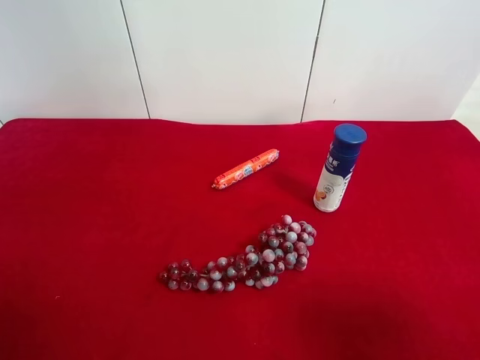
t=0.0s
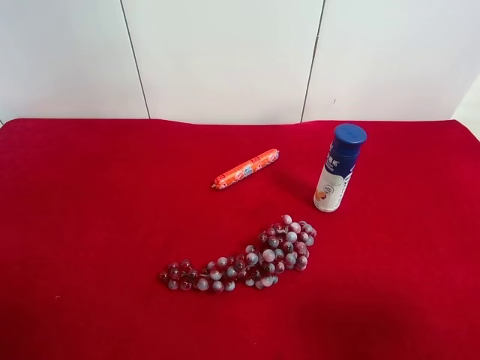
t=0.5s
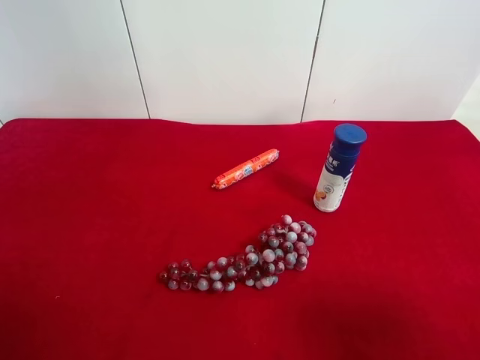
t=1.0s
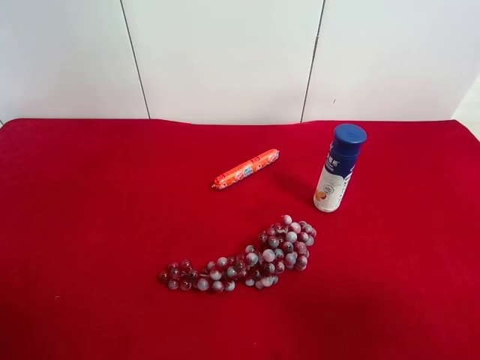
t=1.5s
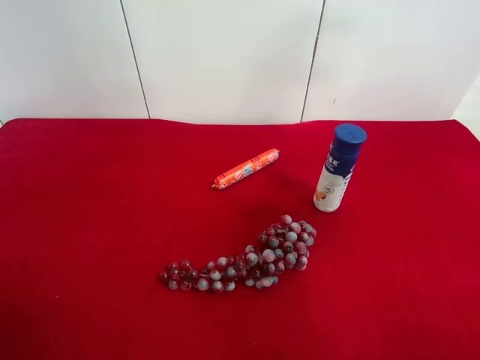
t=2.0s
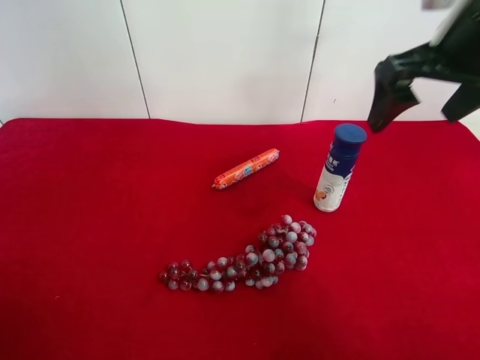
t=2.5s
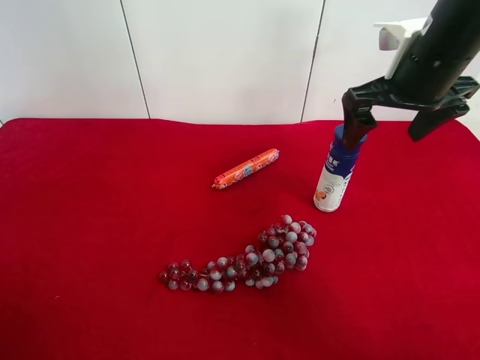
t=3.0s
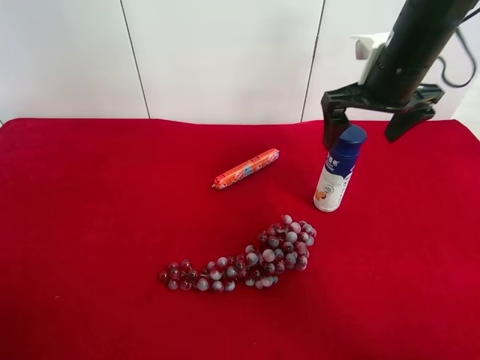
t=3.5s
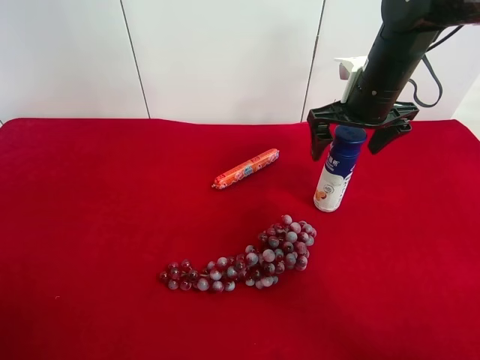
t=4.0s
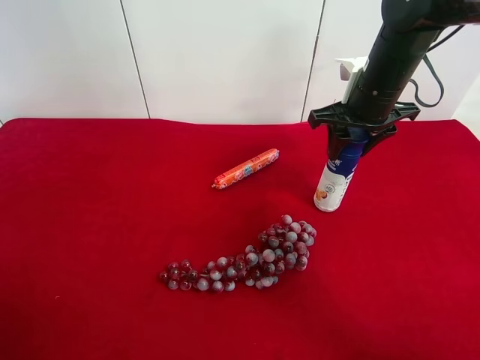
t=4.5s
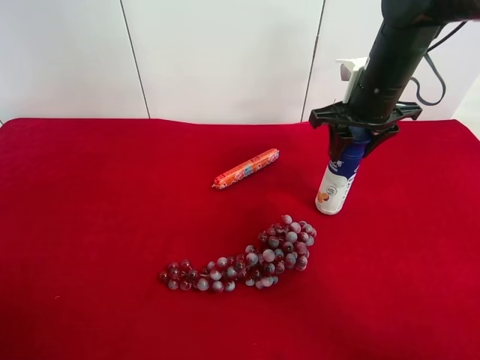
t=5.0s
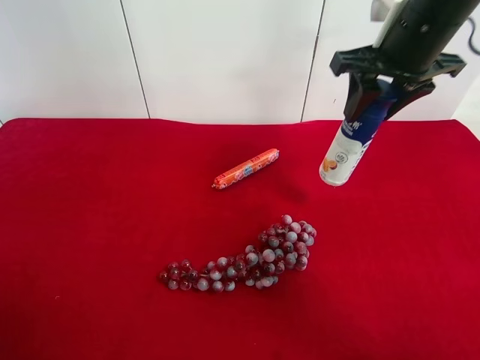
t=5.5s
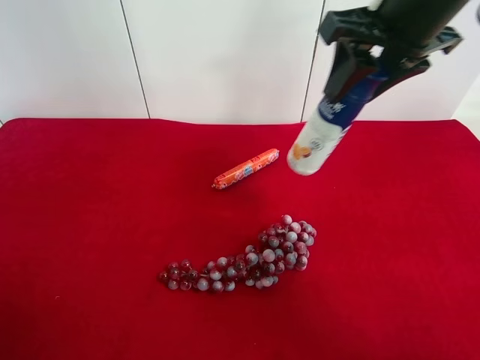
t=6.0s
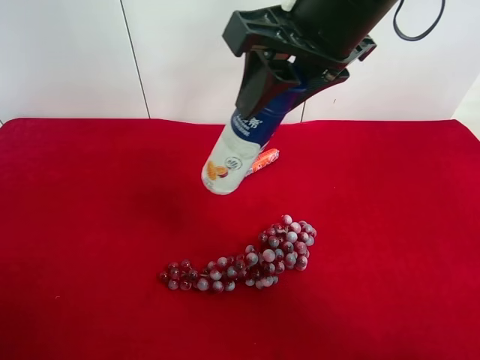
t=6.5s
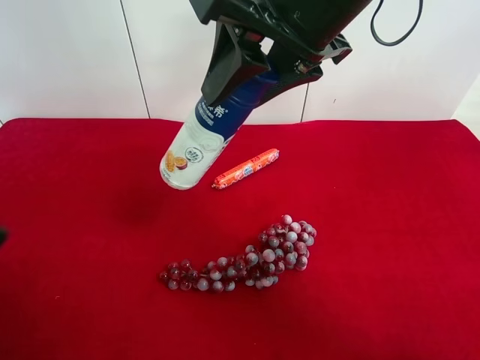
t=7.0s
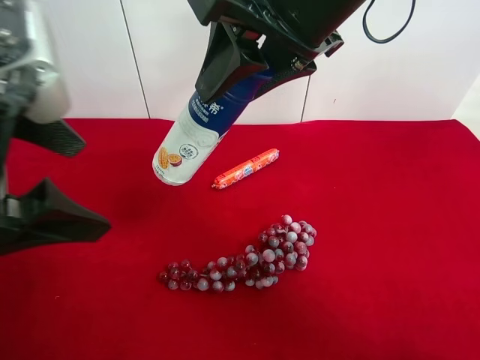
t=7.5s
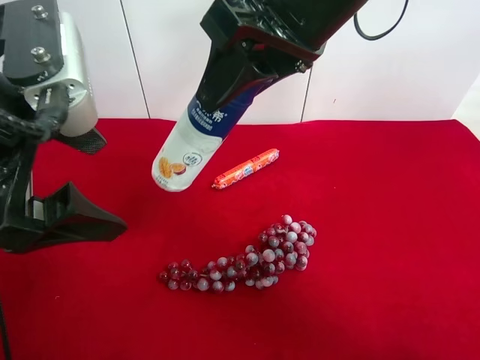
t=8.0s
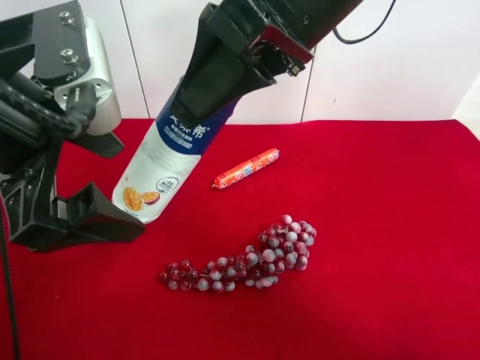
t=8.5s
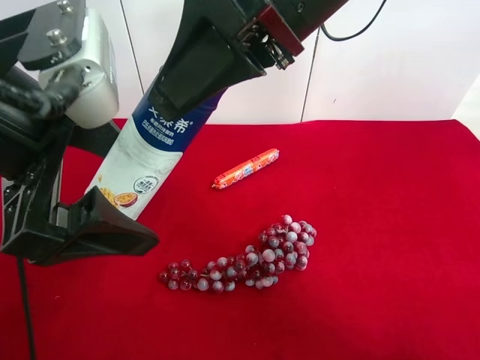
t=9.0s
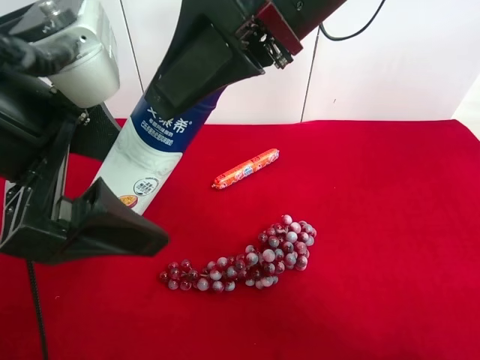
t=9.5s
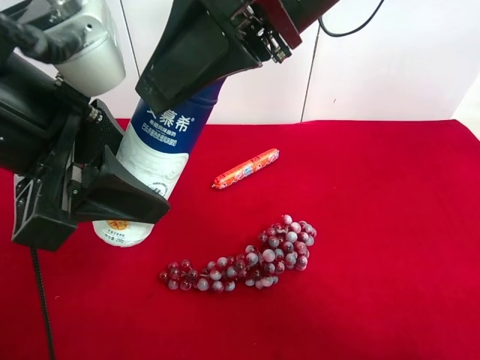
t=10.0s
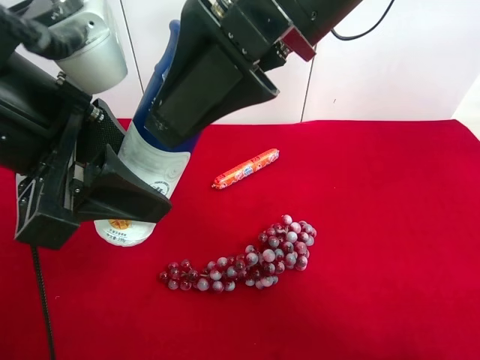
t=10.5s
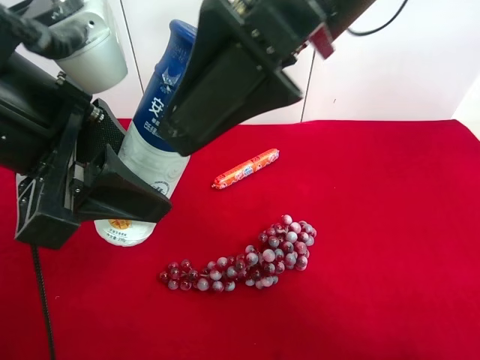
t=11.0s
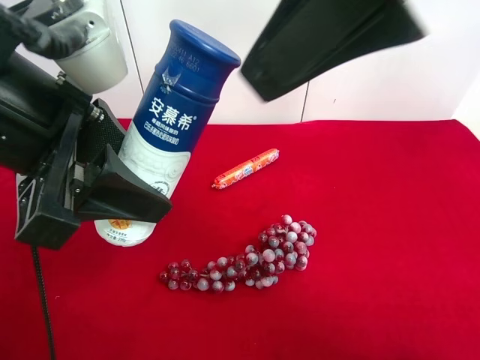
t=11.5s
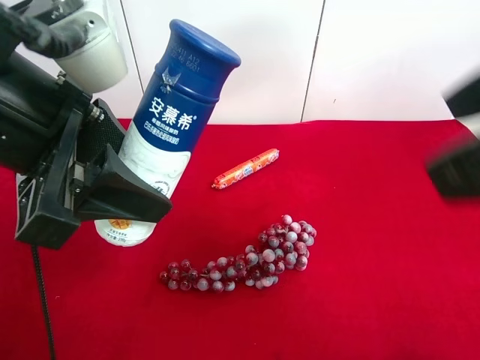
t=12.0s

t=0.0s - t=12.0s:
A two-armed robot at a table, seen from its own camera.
Task of the whole recording: use the right gripper to pick up the item and transfer it from the right gripper to the left gripper.
Step, t=0.0s - t=4.0s: Use the right gripper to grab the yogurt on the right side of the table.
Step, t=4.5s - t=11.5s: Pass the yogurt to the left gripper.
t=0.0s - t=2.0s: The right gripper shifts roughly 20 cm forward and upward.
t=2.0s - t=4.0s: The right gripper goes some 25 cm forward and downward.
t=4.0s - t=6.0s: The right gripper shifts some 15 cm upward and backward, and closes its fingers.
t=6.0s - t=8.0s: The right gripper moves to the left, approximately 10 cm, while the left gripper travels forward and to the right by roughly 20 cm.
t=8.0s - t=10.0s: The left gripper closes.
t=10.0s - t=12.0s: The right gripper shifts approximately 20 cm to the right and backward, and opens up.

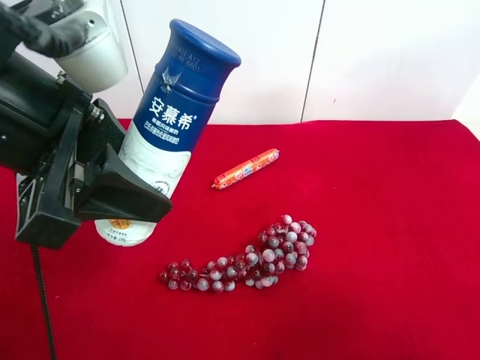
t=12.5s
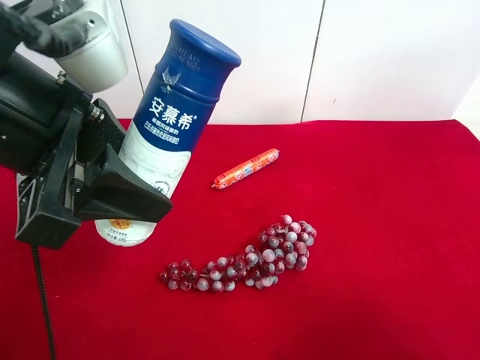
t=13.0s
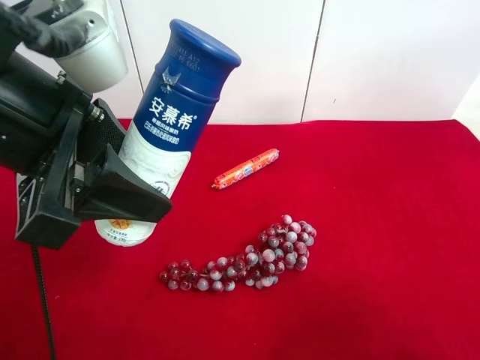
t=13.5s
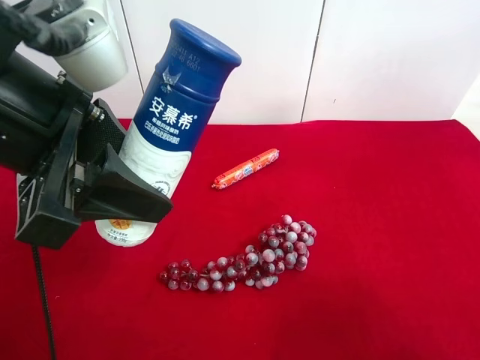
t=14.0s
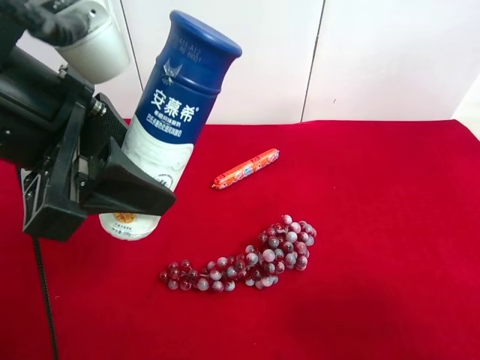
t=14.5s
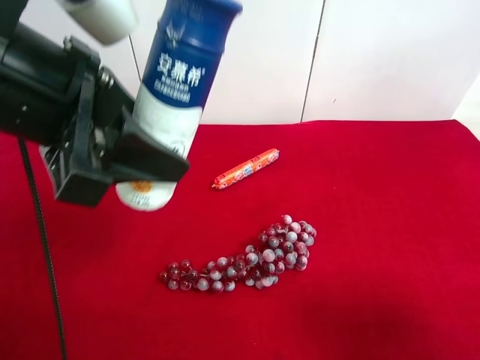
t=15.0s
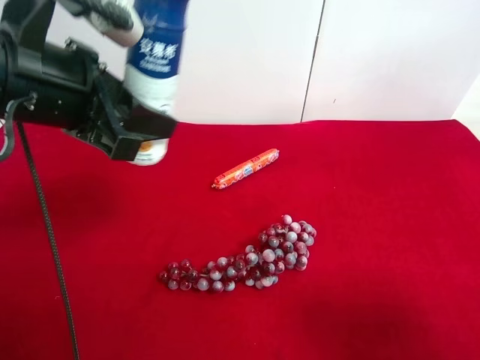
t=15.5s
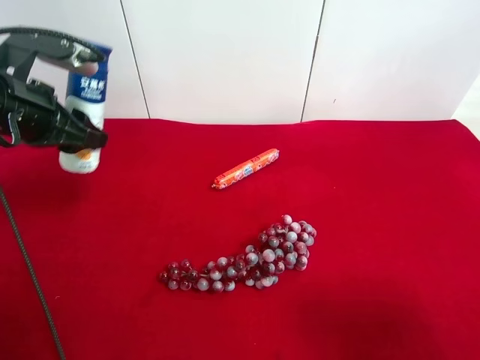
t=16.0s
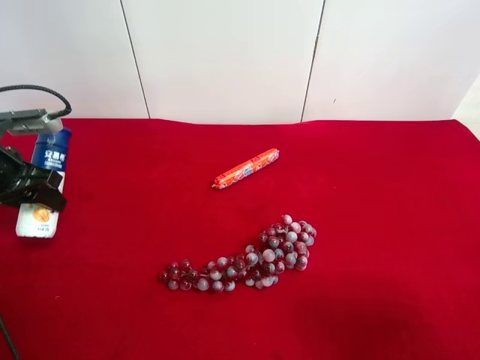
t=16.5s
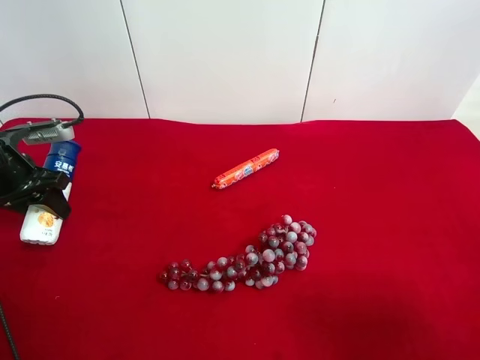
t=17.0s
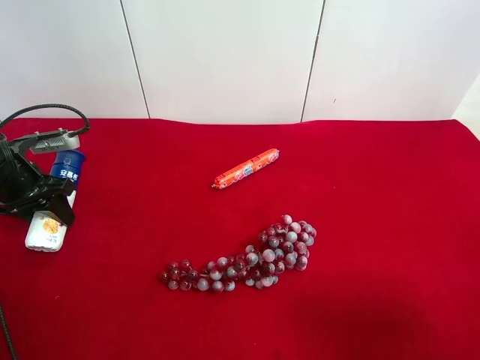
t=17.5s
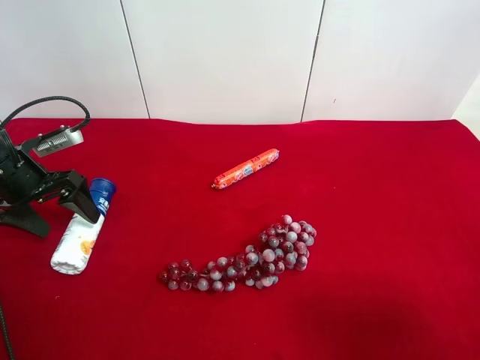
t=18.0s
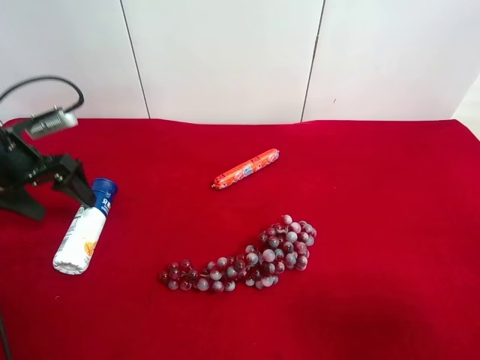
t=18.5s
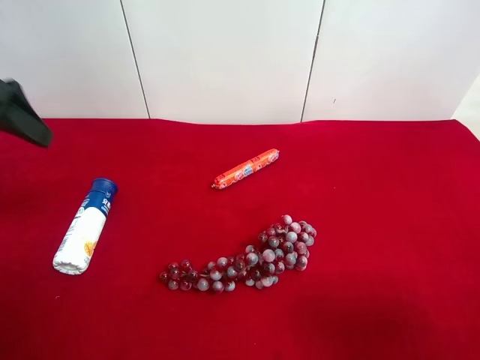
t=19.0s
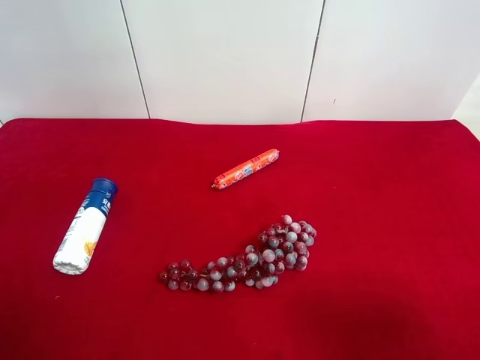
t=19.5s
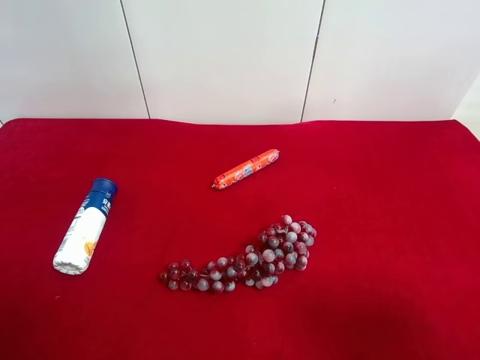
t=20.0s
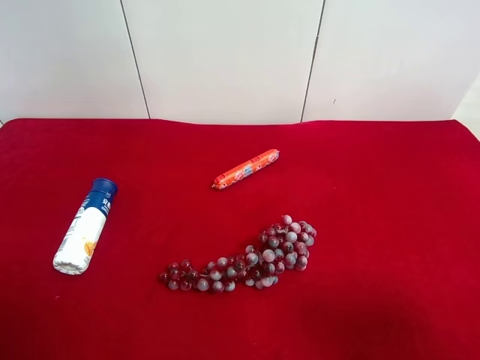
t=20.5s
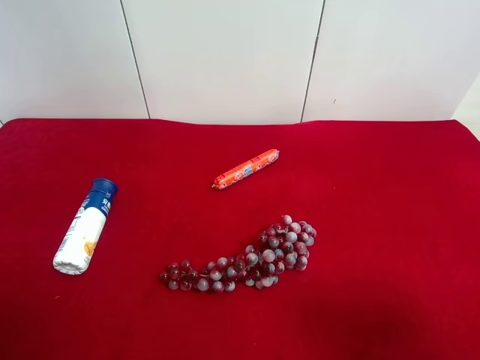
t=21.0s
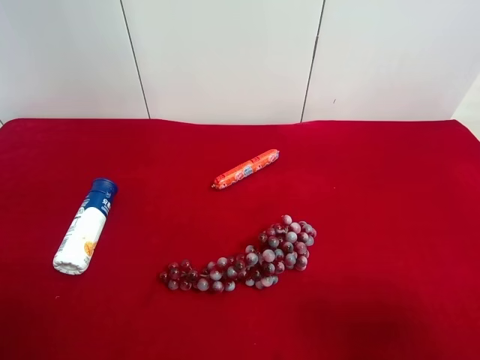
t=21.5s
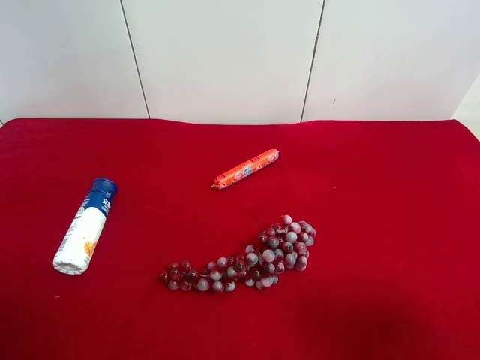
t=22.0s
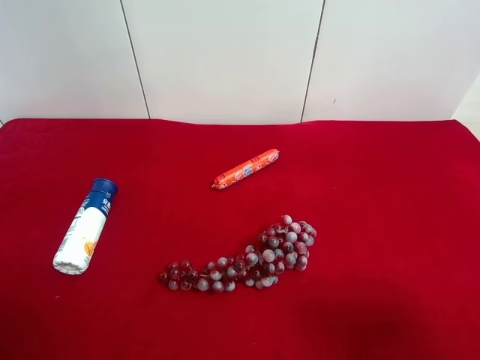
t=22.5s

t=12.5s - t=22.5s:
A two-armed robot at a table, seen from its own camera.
Task of the whole recording: use the right gripper to pick up the item and transfer it from the right gripper to the left gripper.
Step, t=12.5s - t=18.0s: The left gripper places yogurt on the left side of the table.
t=14.5s - t=16.5s: The left gripper is displaced to the left, downward and forward by some 30 cm.
t=16.5s - t=18.5s: The left gripper opens up.
t=18.5s - t=20.5s: The left gripper goes roughly 35 cm backward and upward.

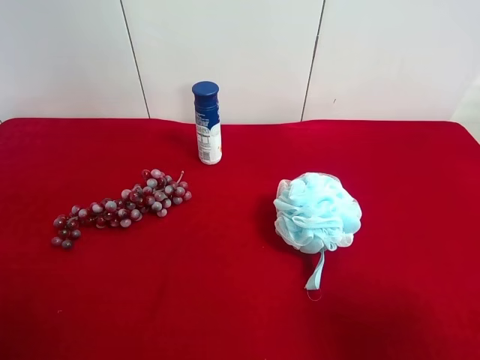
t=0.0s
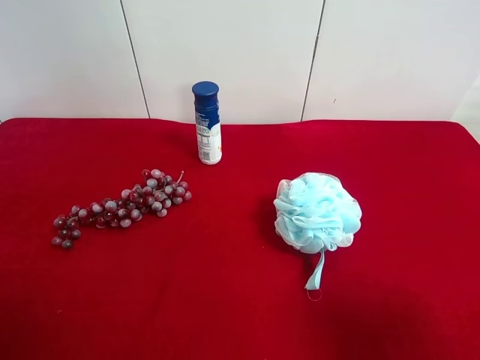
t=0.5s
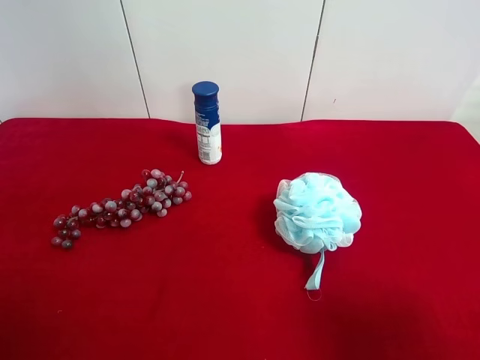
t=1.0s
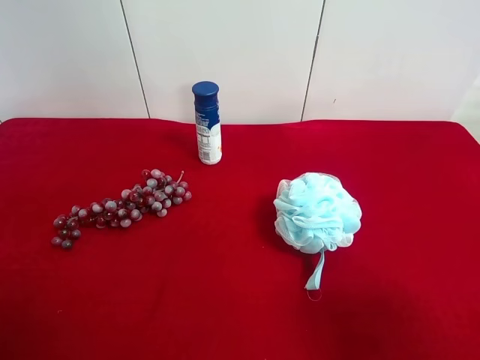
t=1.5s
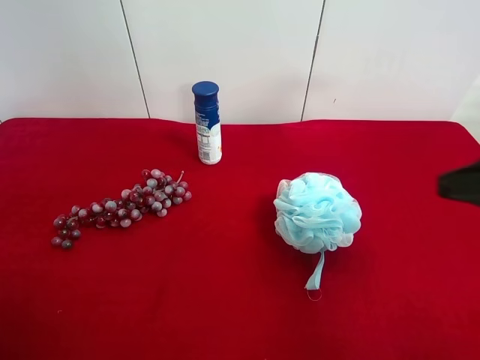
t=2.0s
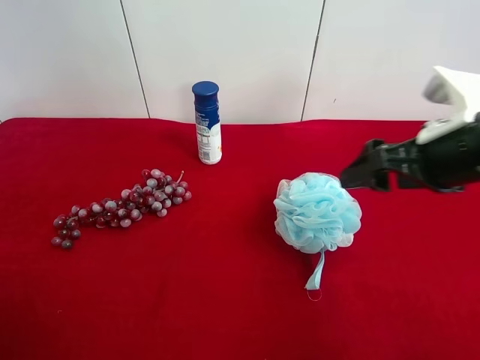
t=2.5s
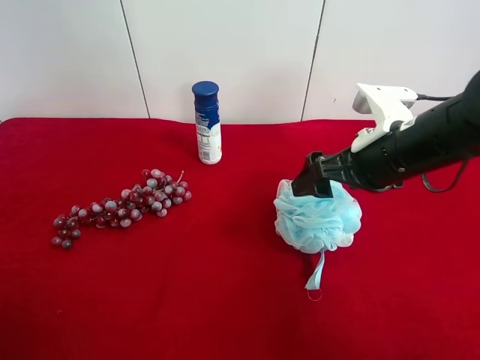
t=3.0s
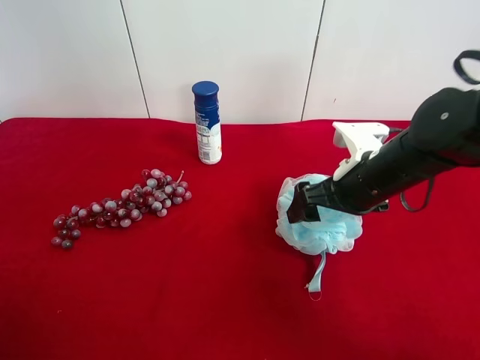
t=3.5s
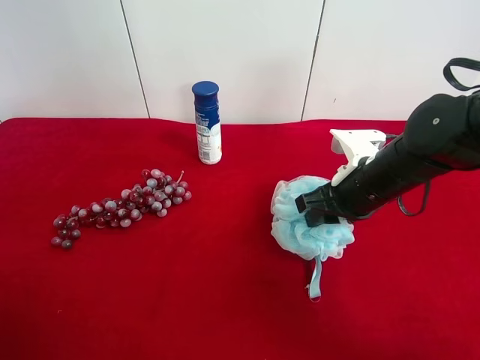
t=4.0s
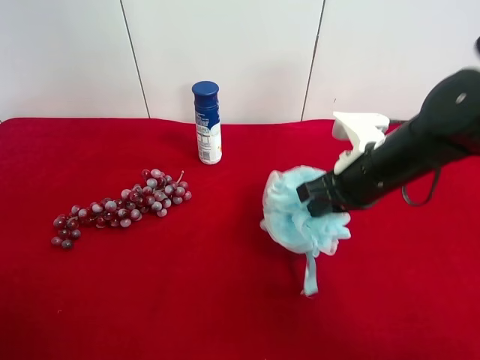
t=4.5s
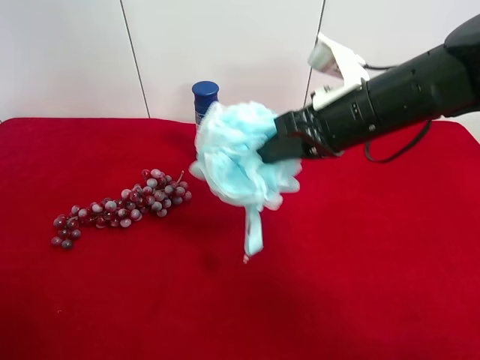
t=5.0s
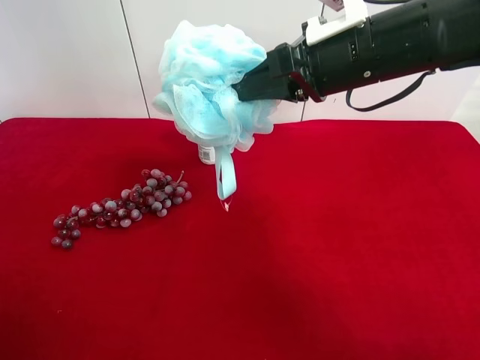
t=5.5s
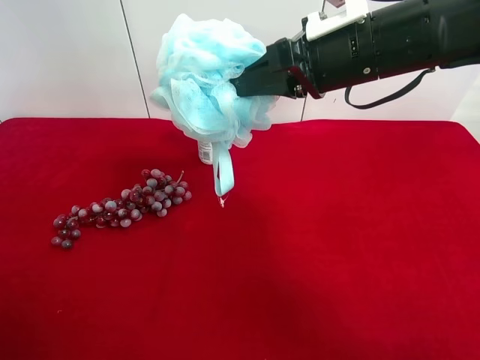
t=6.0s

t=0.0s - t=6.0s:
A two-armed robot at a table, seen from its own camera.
Task of the whole recording: use the right gripper to pick up the item and transfer it from the right gripper to the left gripper.
Step, t=0.0s - t=4.0s: Use the right gripper to grab the shower sphere on the right side of the table.
t=0.0s - t=2.0s: The right gripper heads forward, covering approximately 10 cm.
t=2.0s - t=4.0s: The right gripper goes approximately 20 cm downward, forward and to the left, and closes.
t=4.0s - t=6.0s: The right gripper travels upward by roughly 15 cm.
